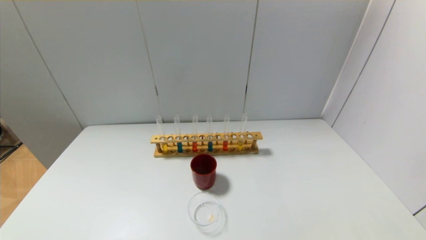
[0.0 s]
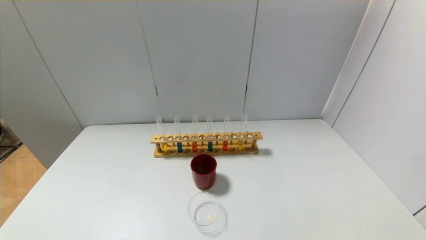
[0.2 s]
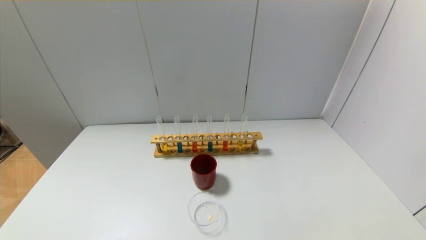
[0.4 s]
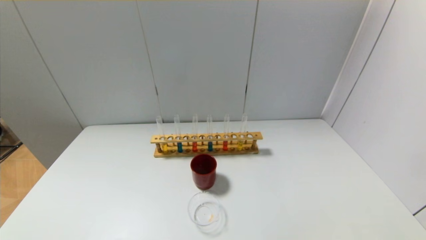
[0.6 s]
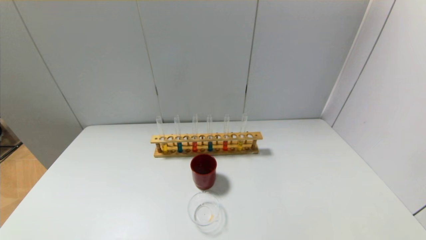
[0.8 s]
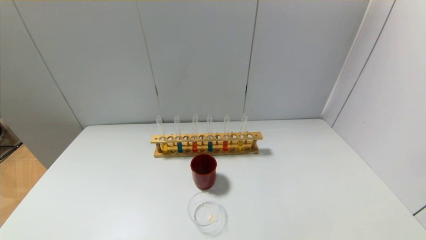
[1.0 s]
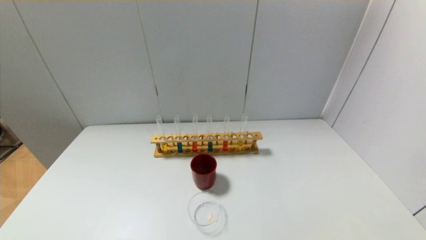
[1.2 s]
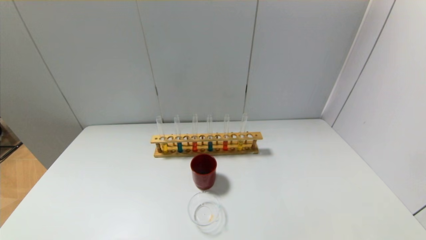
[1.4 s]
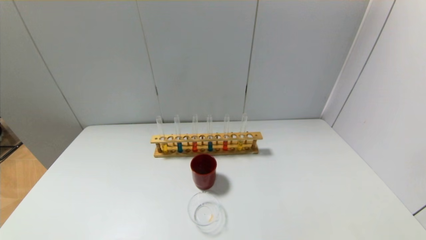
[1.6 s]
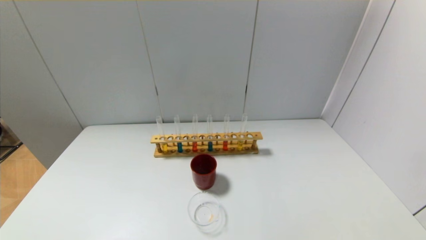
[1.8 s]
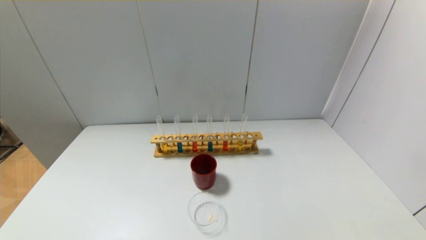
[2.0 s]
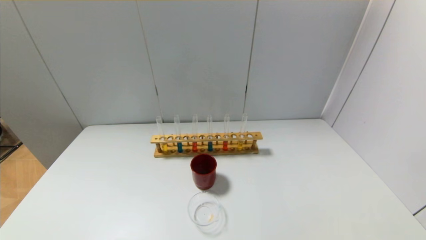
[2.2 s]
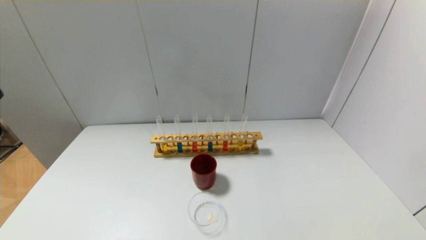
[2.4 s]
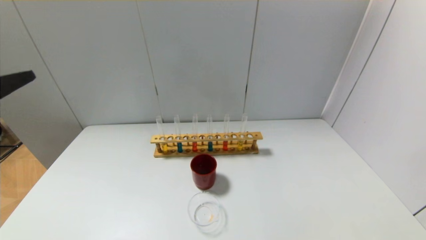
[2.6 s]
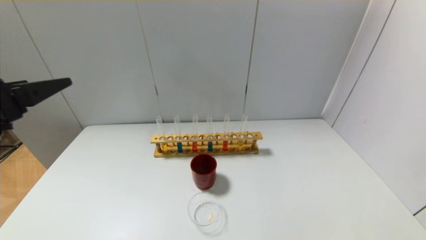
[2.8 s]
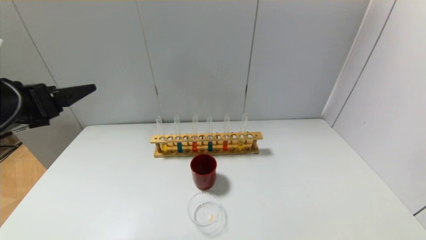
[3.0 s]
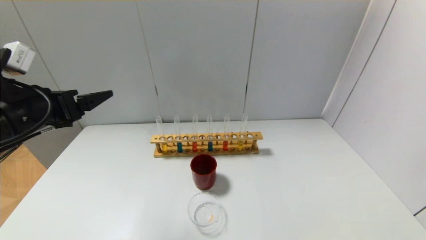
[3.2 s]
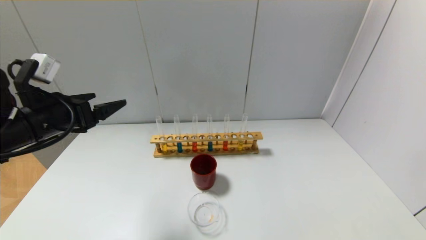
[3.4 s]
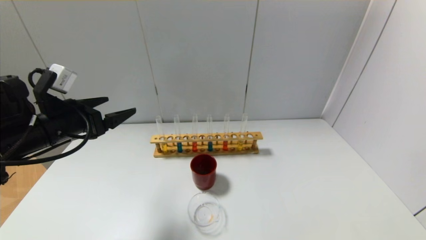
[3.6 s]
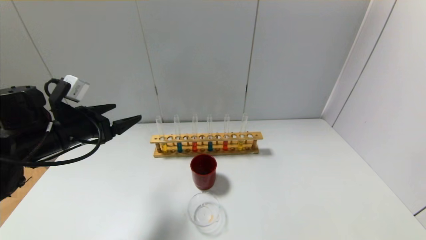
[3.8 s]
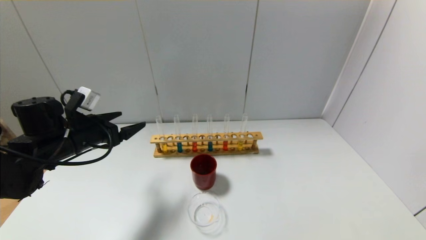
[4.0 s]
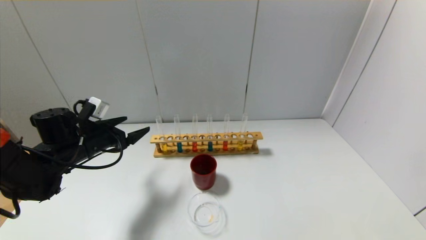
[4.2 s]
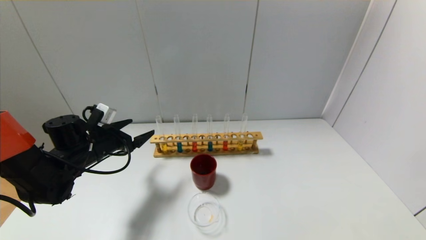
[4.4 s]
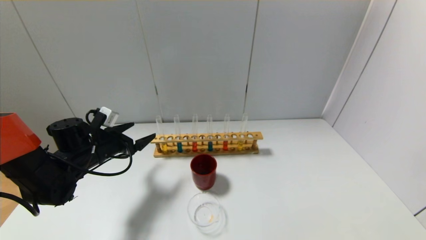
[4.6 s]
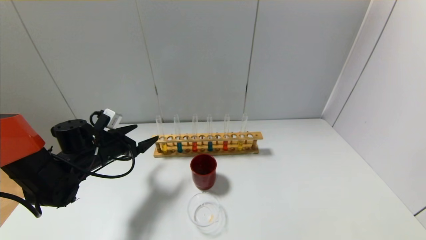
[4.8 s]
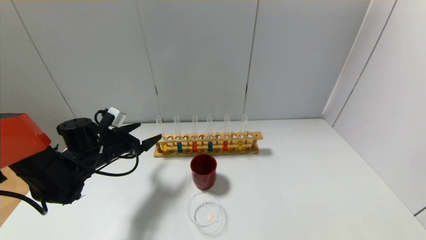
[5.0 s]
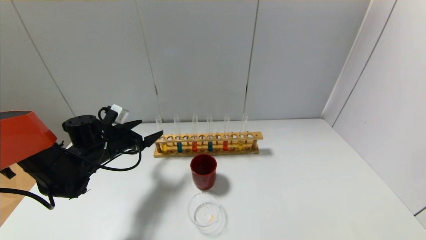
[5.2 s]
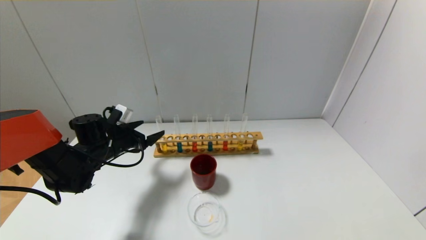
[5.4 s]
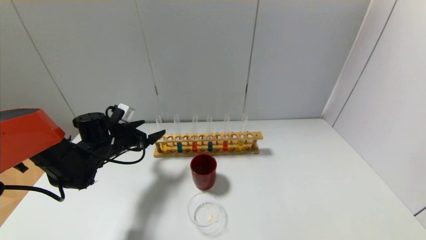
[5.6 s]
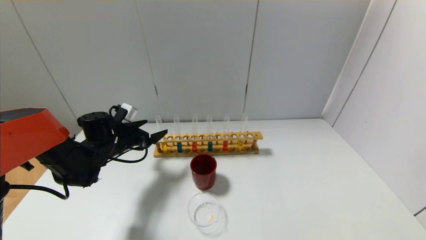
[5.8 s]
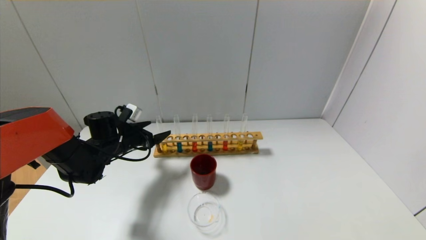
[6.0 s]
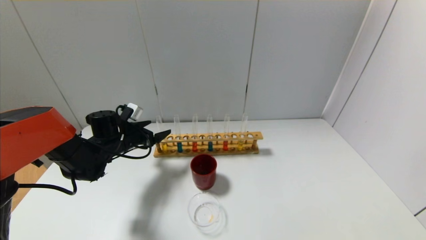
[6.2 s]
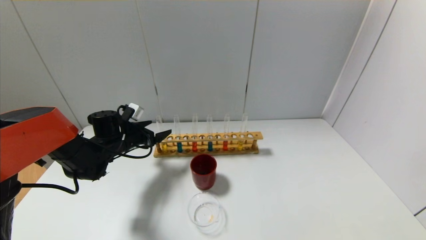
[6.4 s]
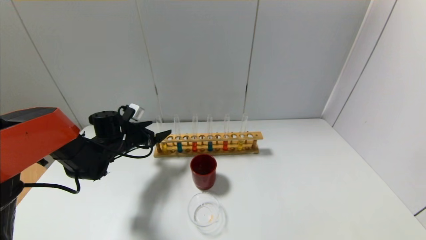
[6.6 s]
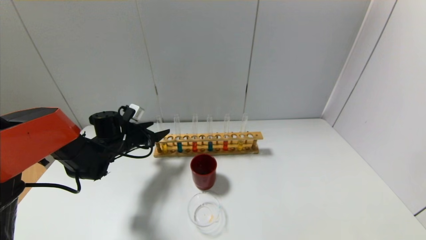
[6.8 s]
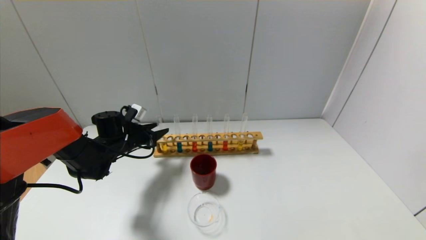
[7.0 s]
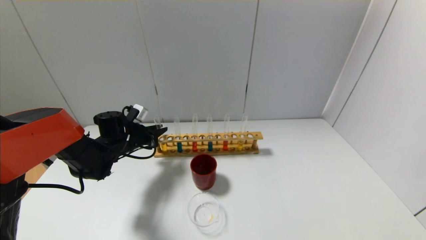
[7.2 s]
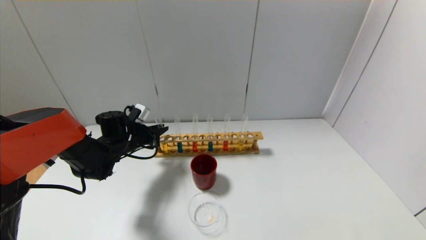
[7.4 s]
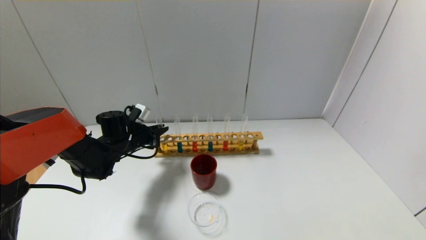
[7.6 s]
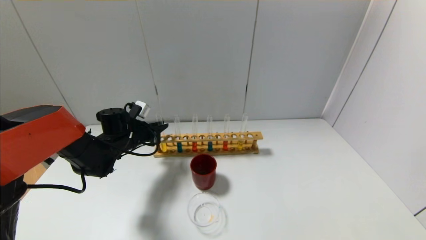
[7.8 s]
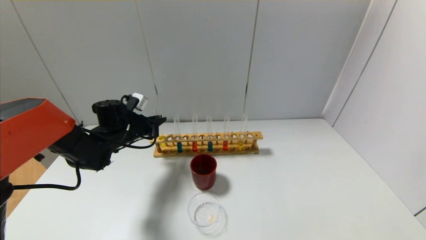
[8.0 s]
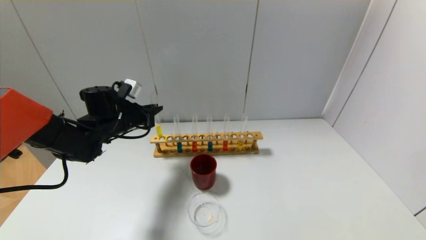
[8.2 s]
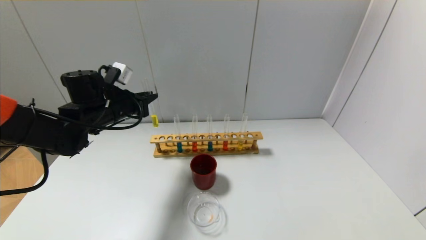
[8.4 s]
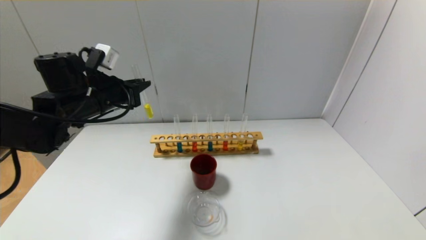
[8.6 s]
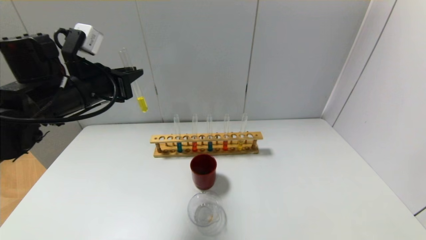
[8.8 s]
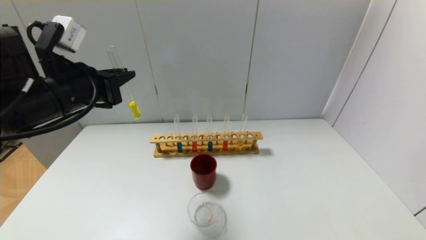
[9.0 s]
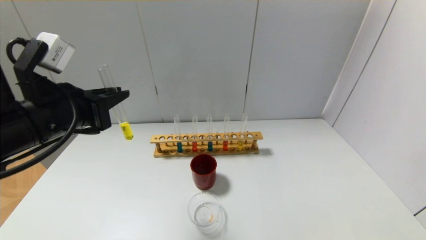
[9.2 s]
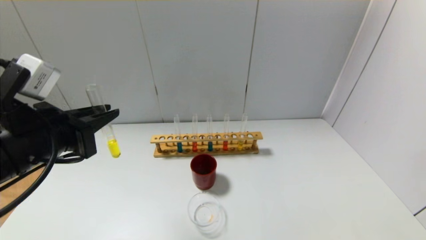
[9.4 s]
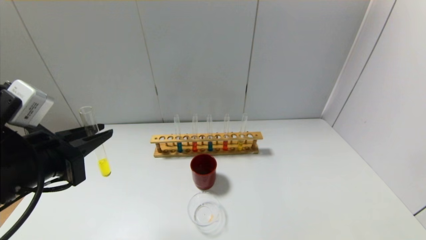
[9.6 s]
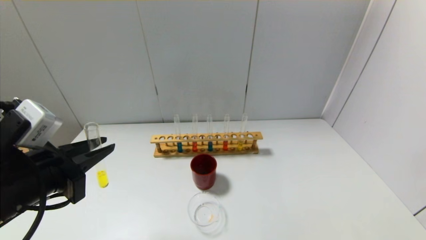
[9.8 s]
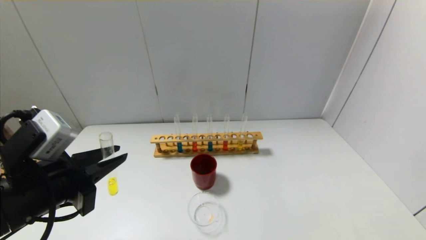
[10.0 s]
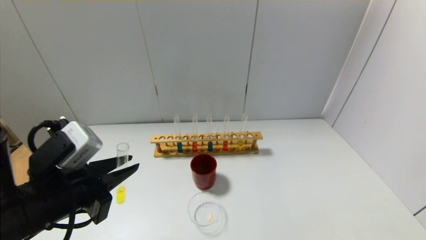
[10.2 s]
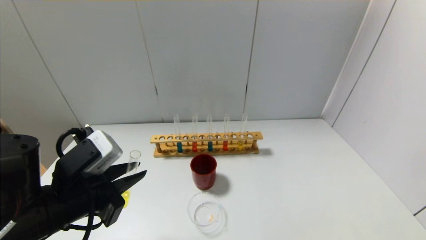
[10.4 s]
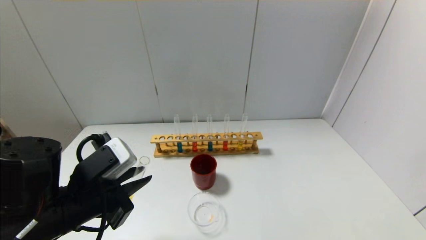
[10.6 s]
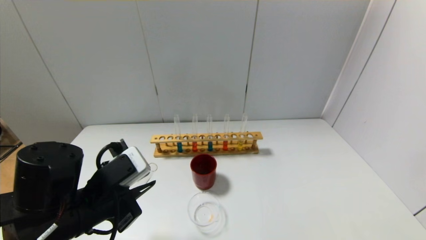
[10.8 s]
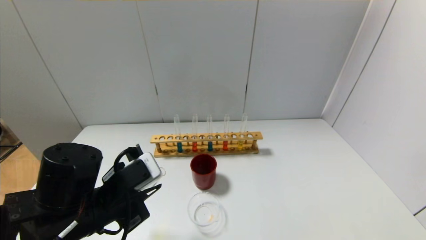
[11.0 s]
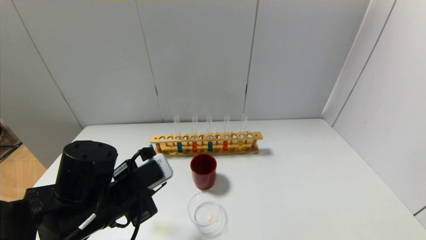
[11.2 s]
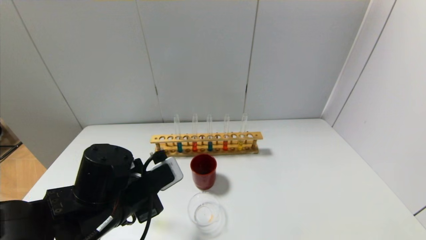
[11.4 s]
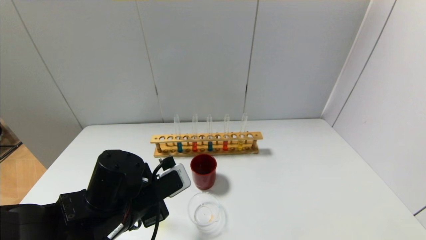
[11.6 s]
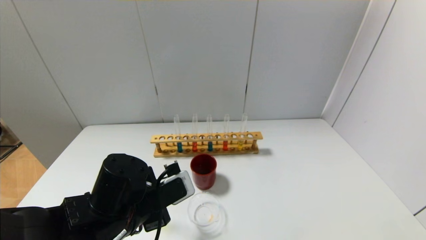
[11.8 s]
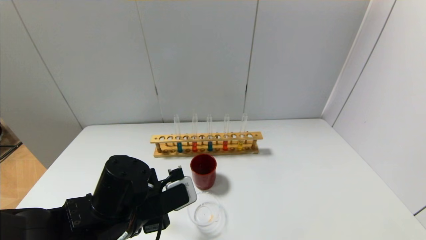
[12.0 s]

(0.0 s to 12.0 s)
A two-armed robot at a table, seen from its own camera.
Step, 0.0 s - 7.2 s: Grasp the yellow reagent with the left gripper.
1.6 s - 3.0 s: The left gripper shifts some 25 cm forward.
3.0 s - 4.4 s: The left gripper shifts about 20 cm downward and forward.
4.4 s - 6.0 s: The left gripper moves forward, about 5 cm.
6.0 s - 7.6 s: The left gripper closes its fingers.
7.6 s - 9.0 s: The left gripper is displaced upward and backward by about 25 cm.
9.0 s - 10.4 s: The left gripper heads downward and backward, covering about 15 cm.
10.4 s - 12.0 s: The left gripper travels to the right and downward by approximately 10 cm.

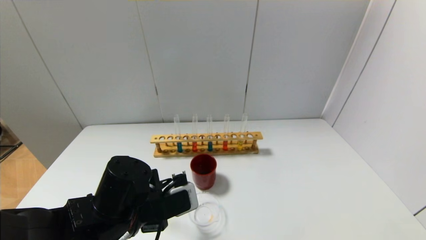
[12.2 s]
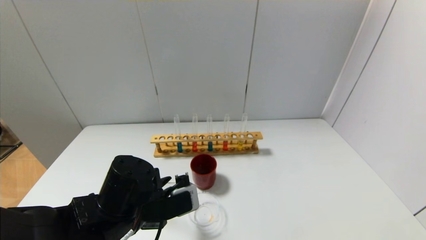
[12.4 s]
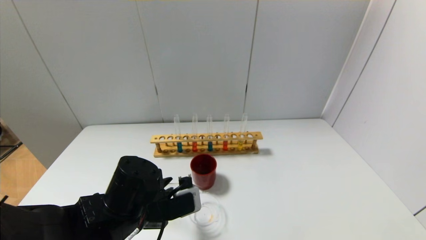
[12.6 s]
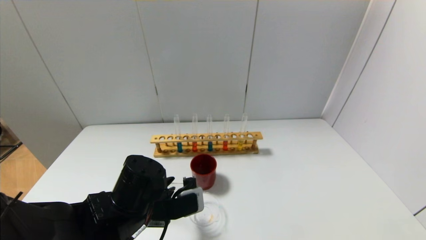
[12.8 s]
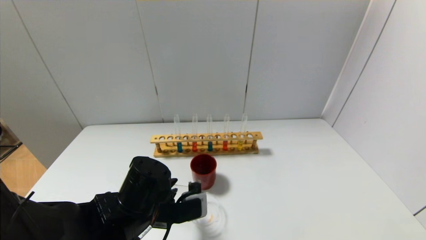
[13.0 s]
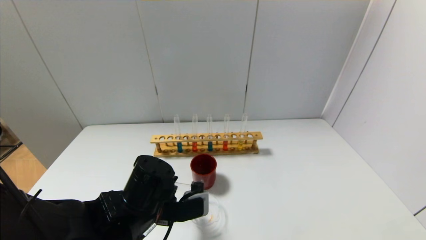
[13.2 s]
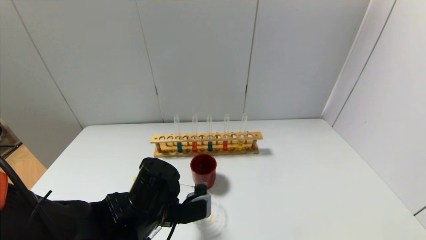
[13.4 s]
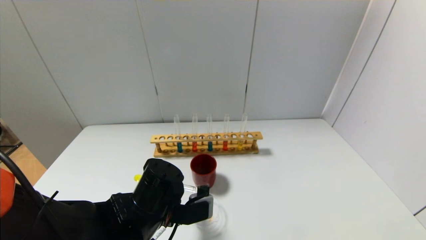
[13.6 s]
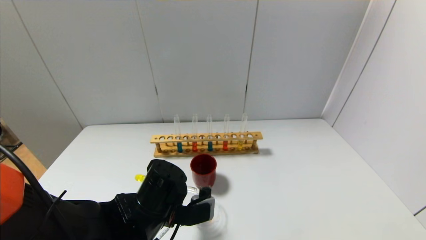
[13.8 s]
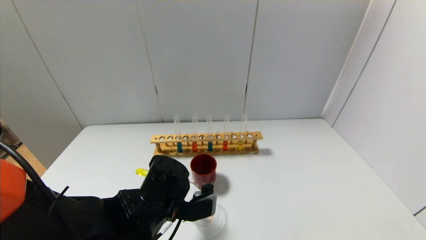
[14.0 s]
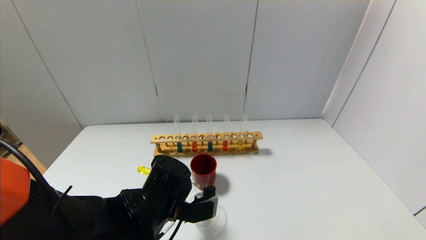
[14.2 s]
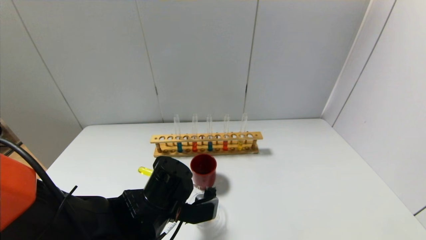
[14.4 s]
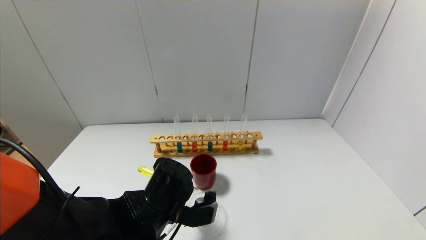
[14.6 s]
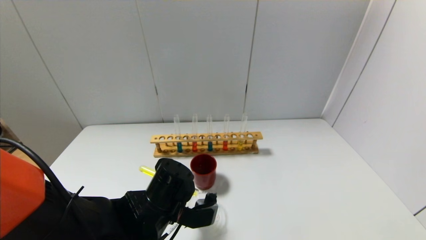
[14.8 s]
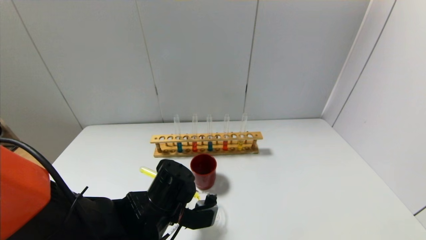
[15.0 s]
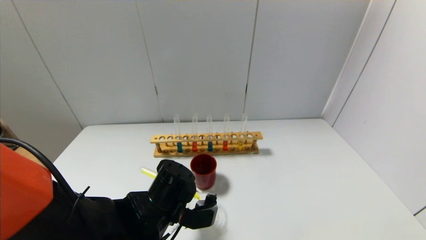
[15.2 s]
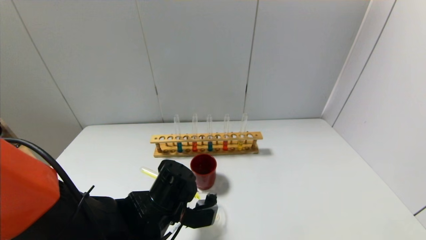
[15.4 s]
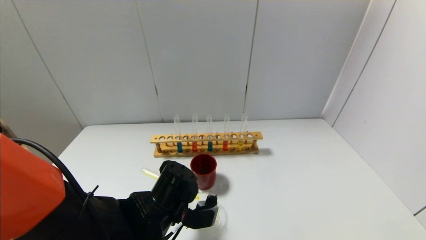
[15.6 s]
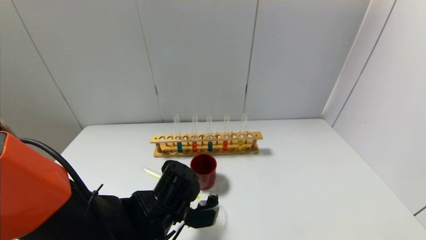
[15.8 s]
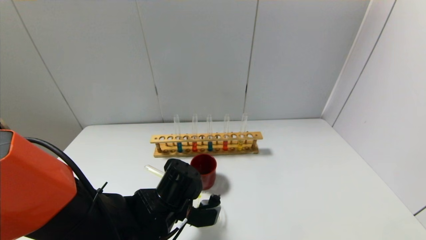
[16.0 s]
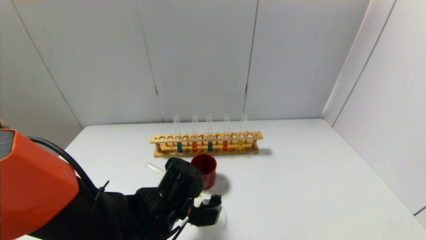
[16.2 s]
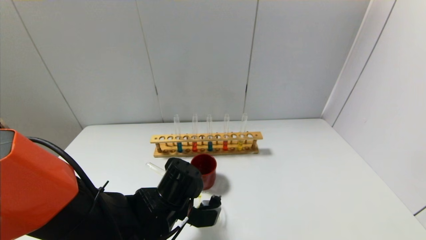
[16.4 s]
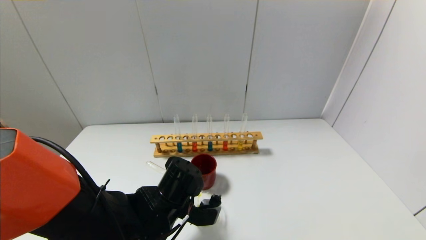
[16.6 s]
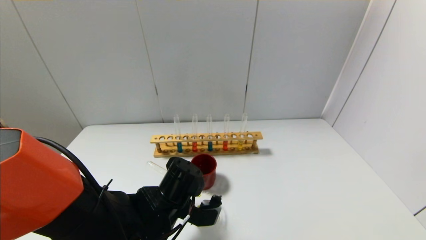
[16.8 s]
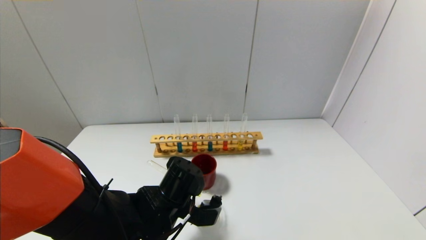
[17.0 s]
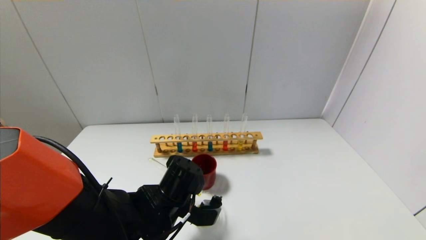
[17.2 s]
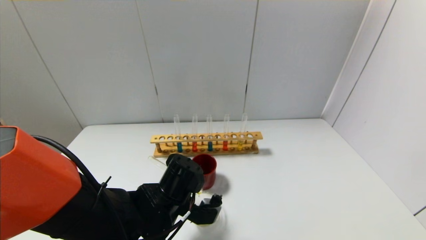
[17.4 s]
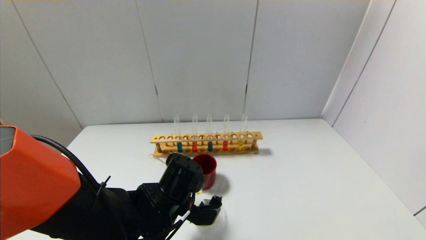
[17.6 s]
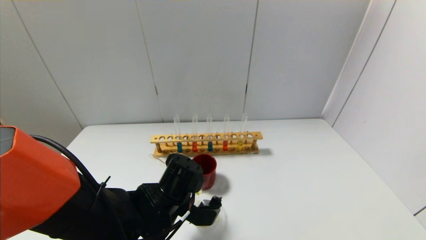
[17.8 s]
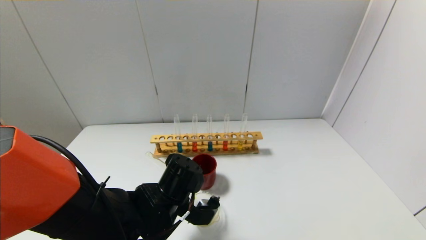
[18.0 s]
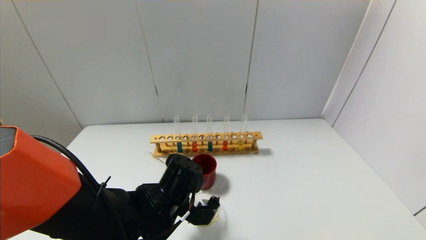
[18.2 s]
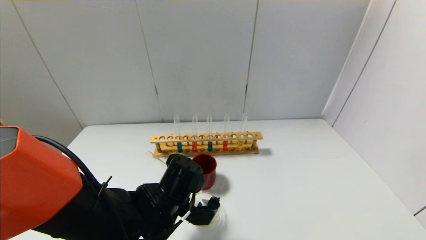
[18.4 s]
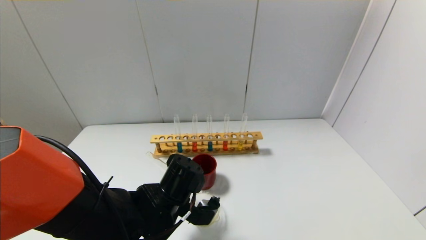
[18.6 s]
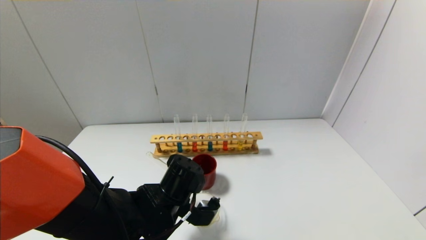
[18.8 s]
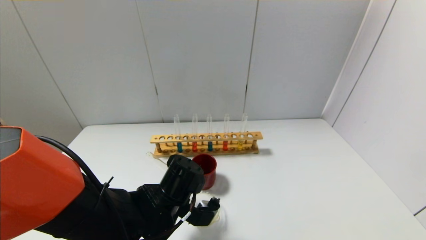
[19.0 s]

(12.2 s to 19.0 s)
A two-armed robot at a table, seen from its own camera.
12.2 s - 13.6 s: There are only small adjustments of the grippers.
13.6 s - 16.2 s: There are only small adjustments of the grippers.
16.2 s - 17.6 s: The grippers move only a little.
17.6 s - 19.0 s: The two grippers keep their place.
